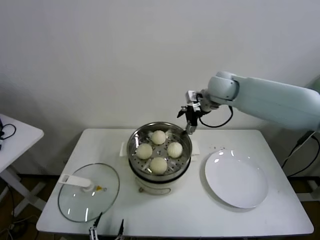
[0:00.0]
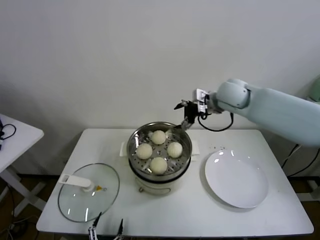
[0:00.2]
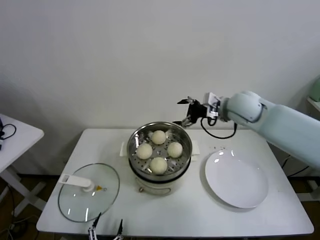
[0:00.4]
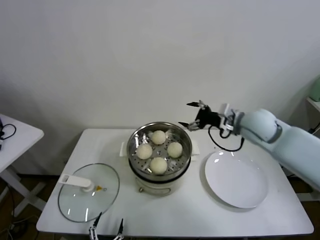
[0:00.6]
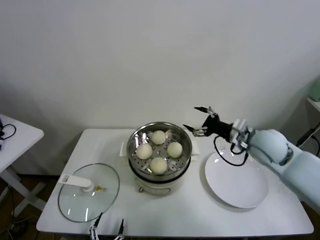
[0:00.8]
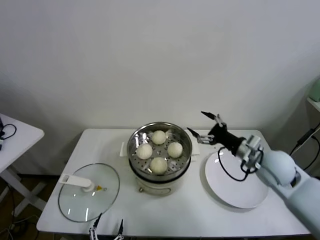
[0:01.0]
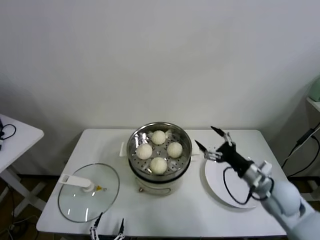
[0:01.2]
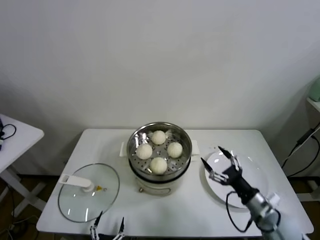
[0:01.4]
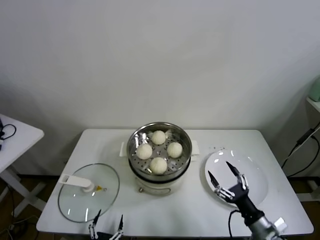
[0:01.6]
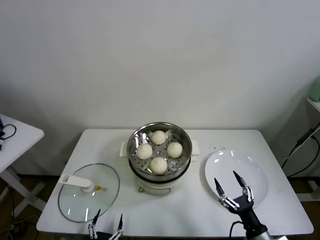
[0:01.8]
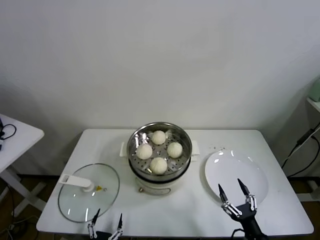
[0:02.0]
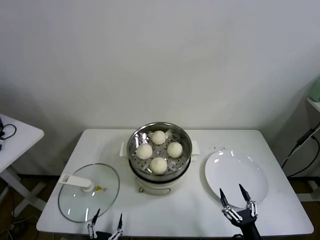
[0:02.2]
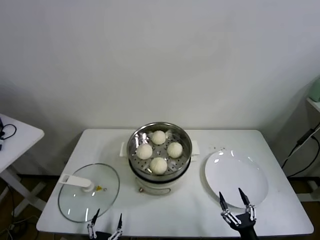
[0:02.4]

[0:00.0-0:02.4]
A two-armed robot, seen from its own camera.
Task of the whole recording: take steamed baozi put them in steamer.
0:00.0 to 0:01.2: The right gripper moves backward, downward and to the right, roughly 35 cm.
0:01.2 to 0:02.4: The right gripper shifts about 30 cm backward and downward.
